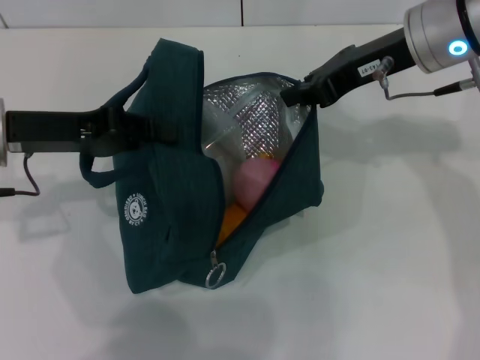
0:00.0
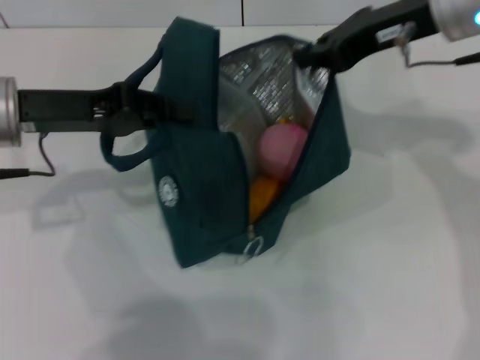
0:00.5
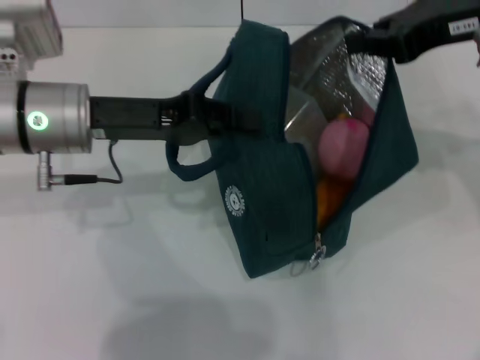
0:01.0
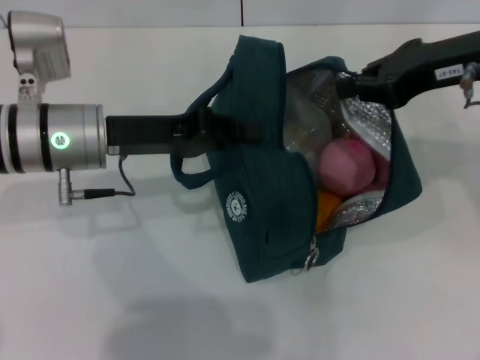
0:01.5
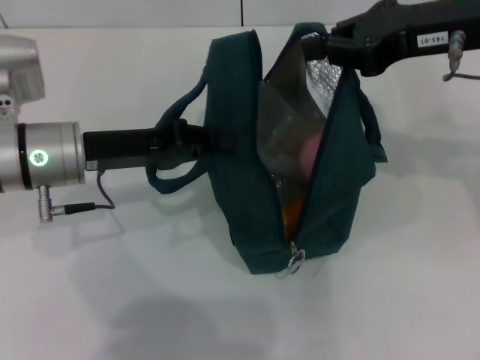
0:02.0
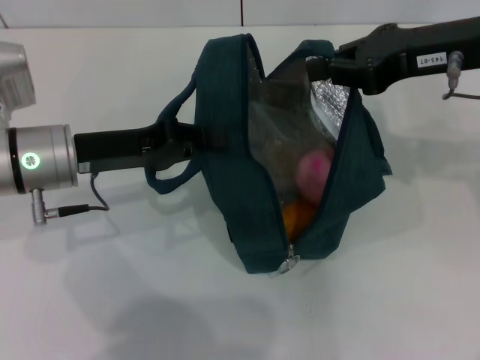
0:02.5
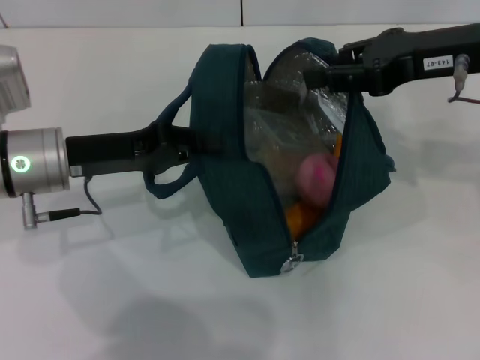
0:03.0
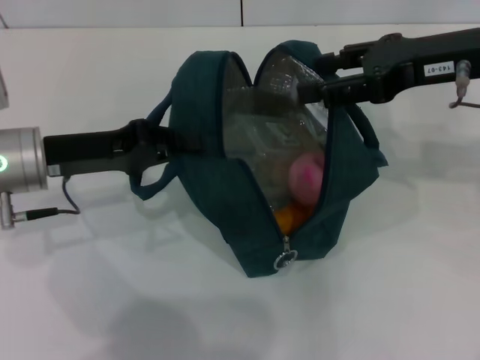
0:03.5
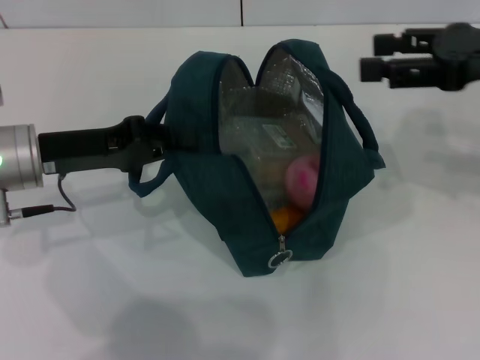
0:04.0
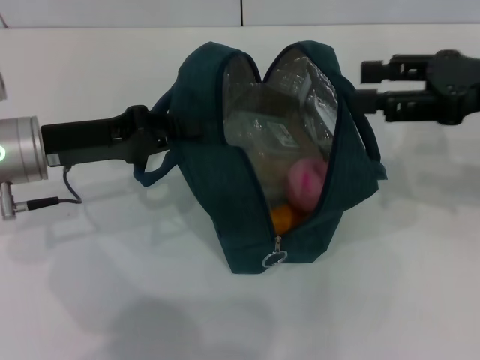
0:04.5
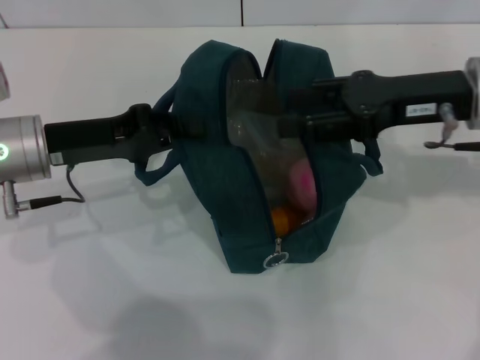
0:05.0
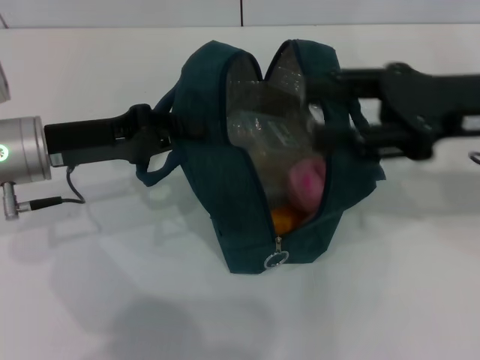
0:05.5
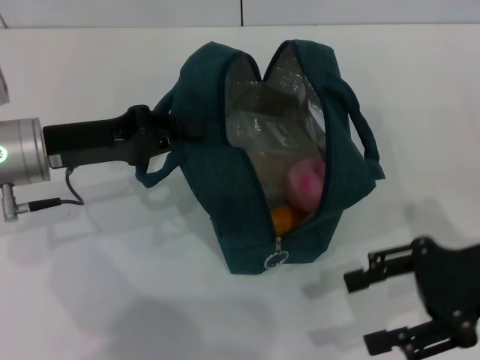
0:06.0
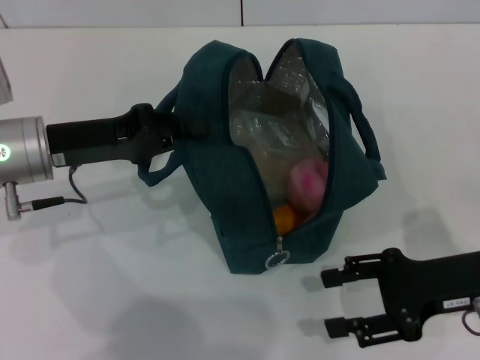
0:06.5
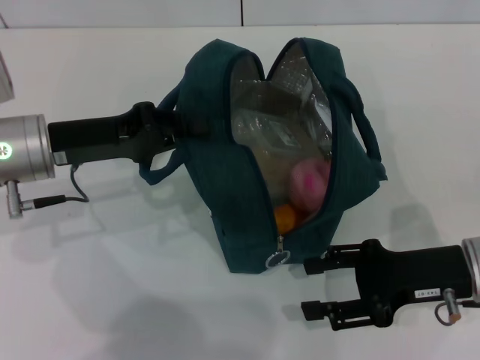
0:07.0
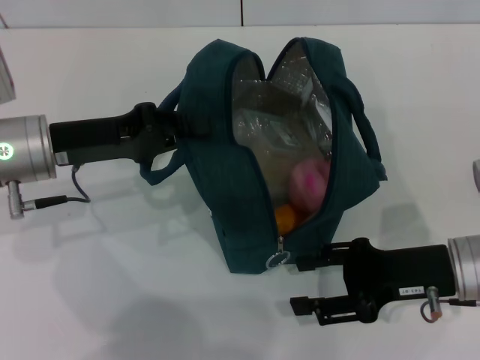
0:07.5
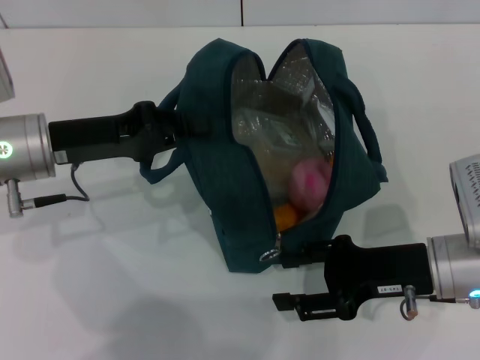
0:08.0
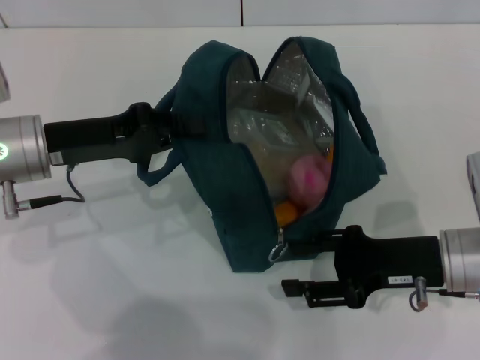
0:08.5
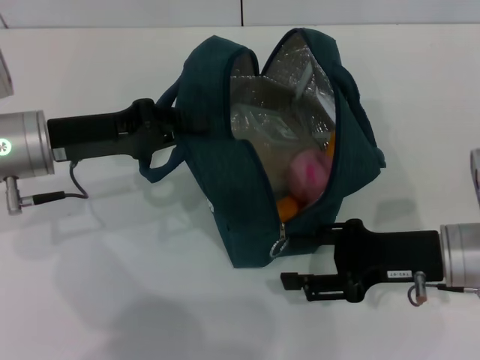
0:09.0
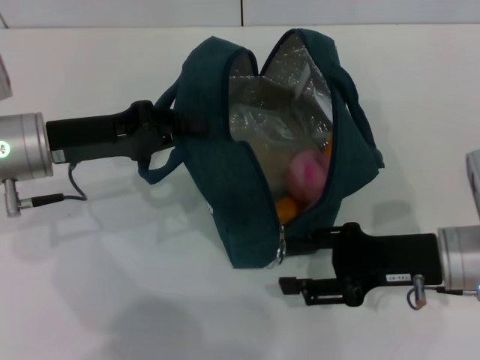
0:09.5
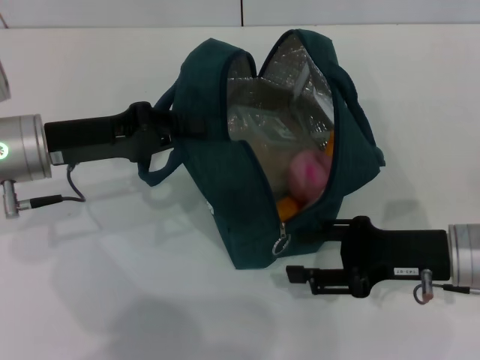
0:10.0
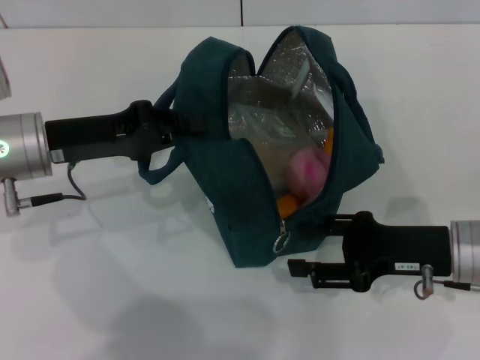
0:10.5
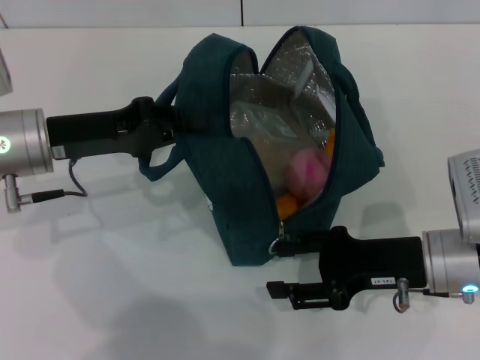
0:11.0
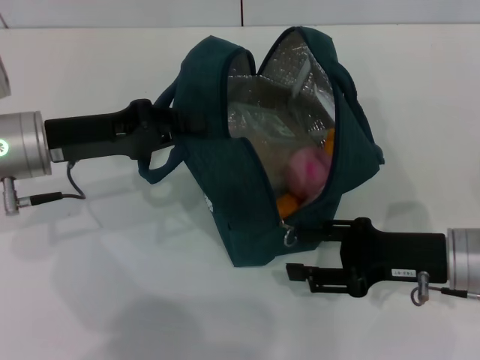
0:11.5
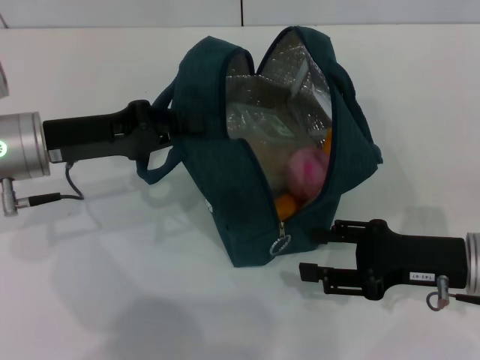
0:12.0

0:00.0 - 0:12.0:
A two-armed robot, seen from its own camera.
Step, 0:00.0 - 0:03.5: Hold the lunch bag with your right hand.
0:00.0 - 0:02.0: The left gripper moves to the right, approximately 5 cm. Meanwhile the right gripper shifts by roughly 5 cm.
0:02.0 - 0:04.0: The right gripper is displaced to the right by approximately 5 cm, and opens up.
0:04.0 - 0:06.0: The right gripper moves downward and backward, about 10 cm.
0:06.0 - 0:08.0: The right gripper goes roughly 10 cm downward and to the left.
0:08.0 - 0:12.0: The grippers make only small movements.

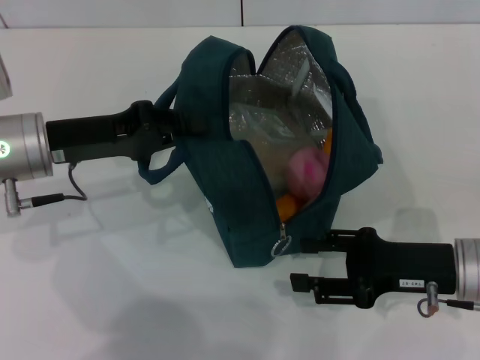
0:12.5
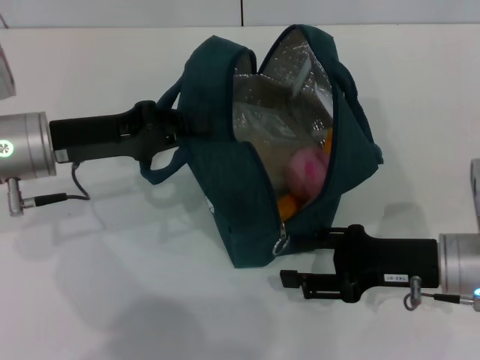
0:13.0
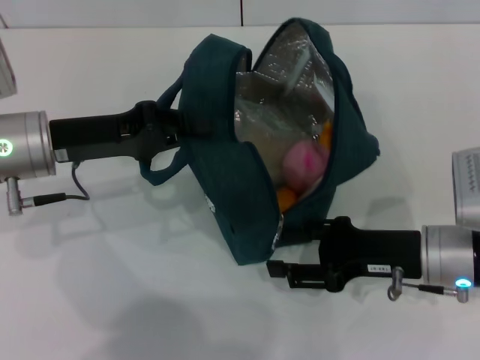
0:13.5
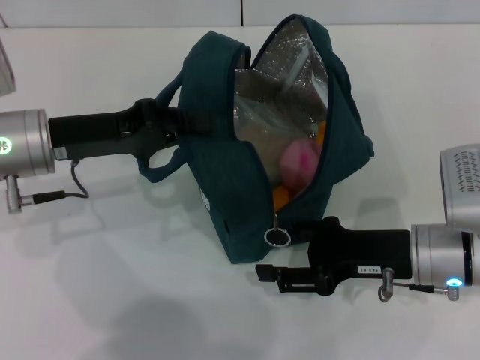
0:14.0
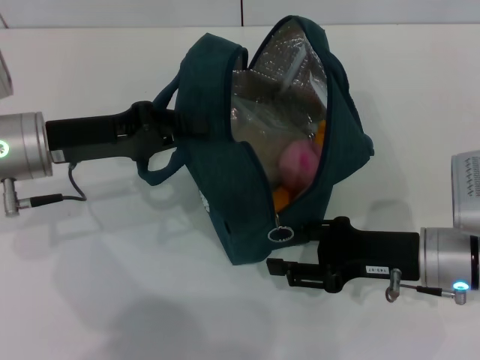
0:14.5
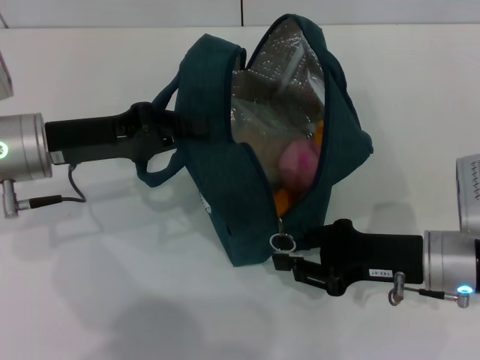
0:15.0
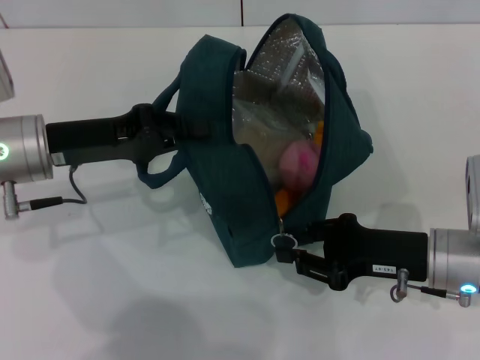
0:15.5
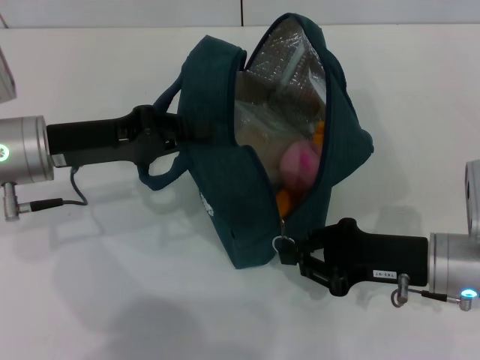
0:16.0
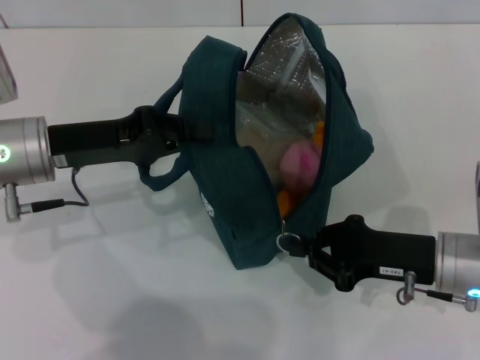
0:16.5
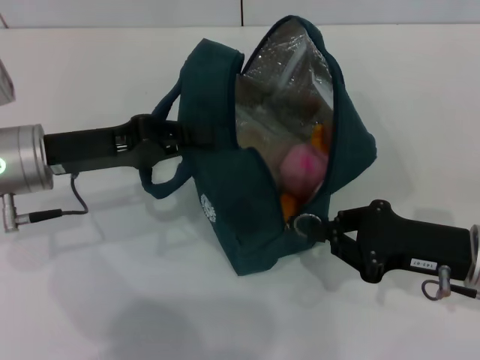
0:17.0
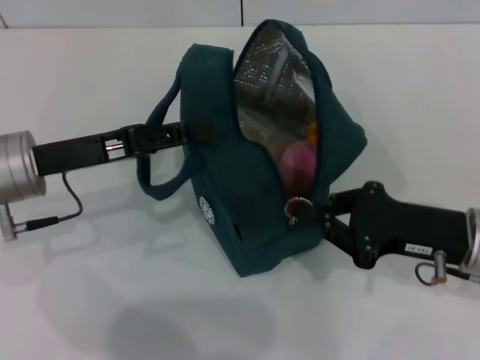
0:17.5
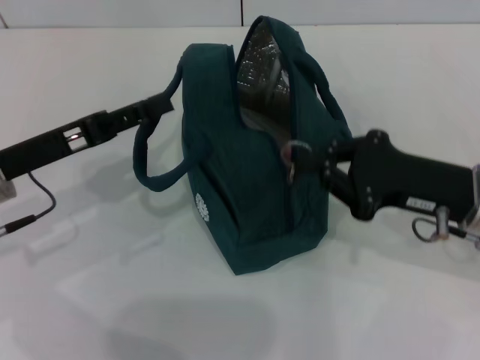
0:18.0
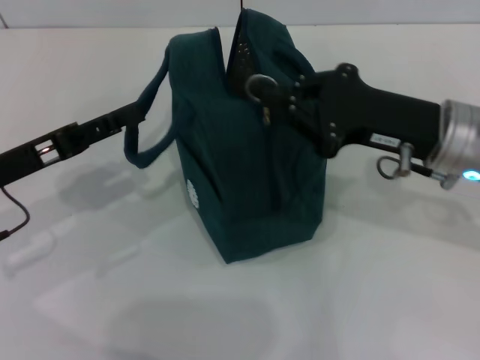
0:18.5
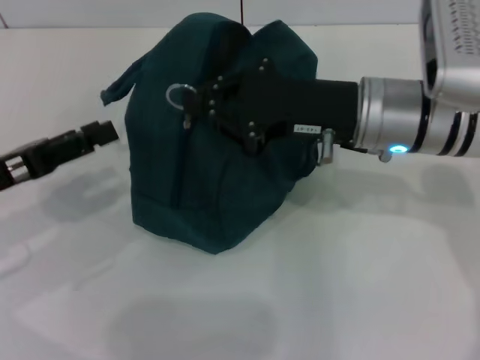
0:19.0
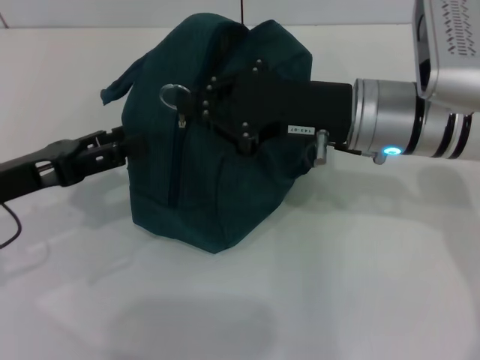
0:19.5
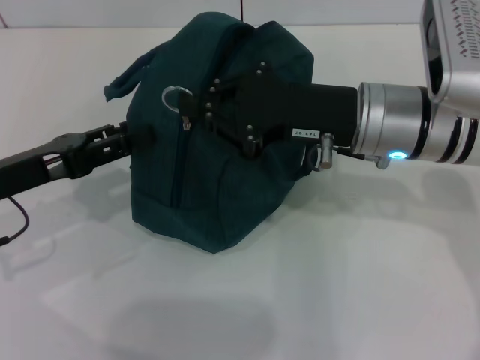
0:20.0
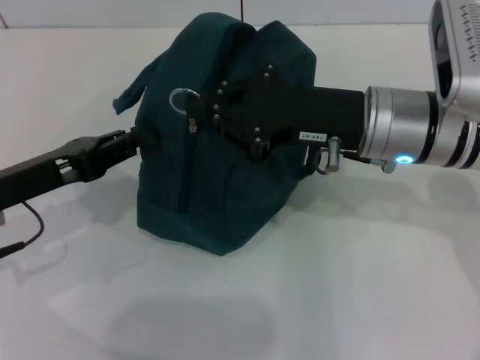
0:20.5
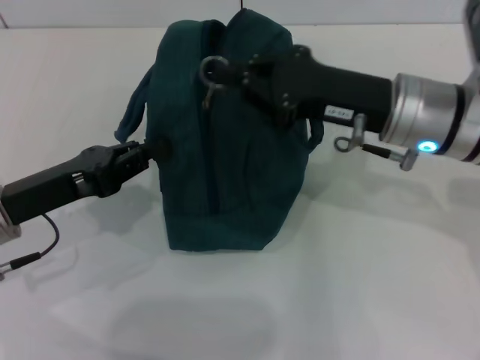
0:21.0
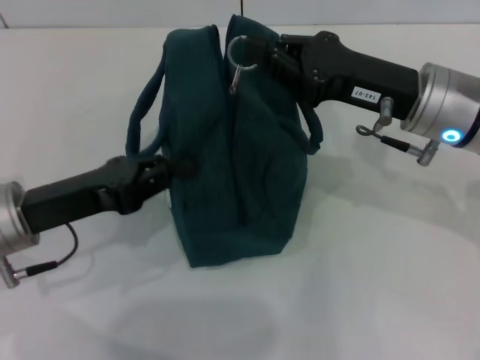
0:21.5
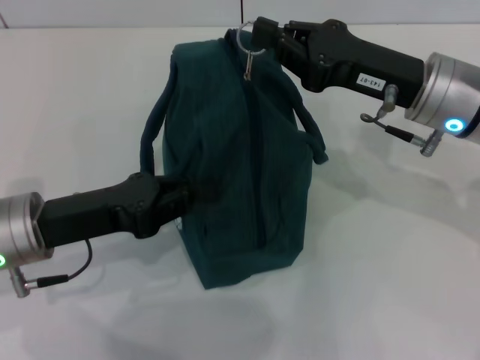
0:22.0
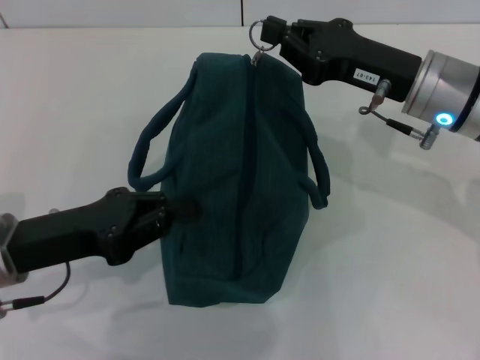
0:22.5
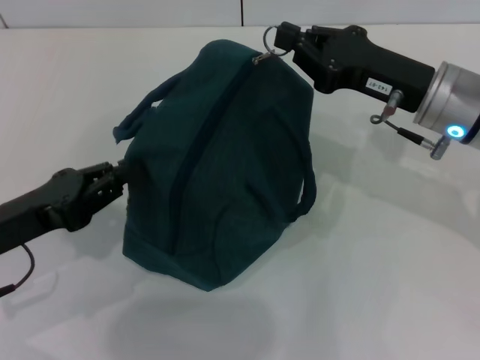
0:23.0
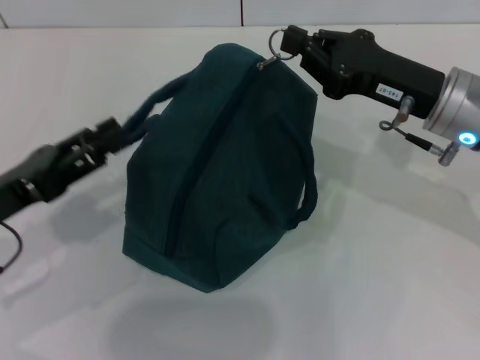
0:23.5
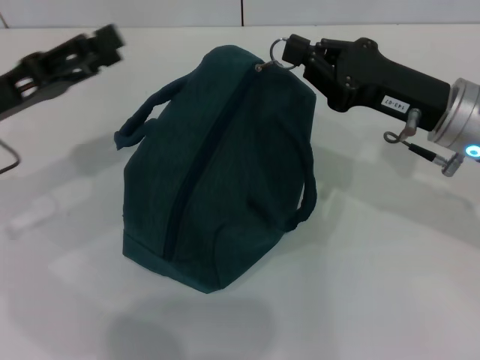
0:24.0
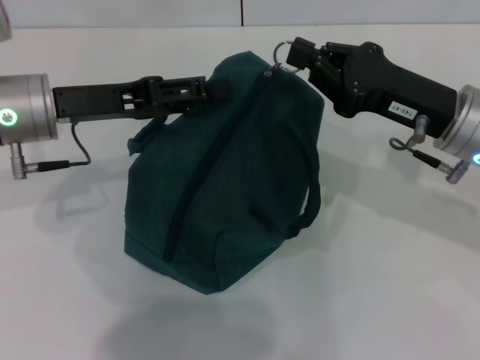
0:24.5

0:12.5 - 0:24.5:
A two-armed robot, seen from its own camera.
Step, 0:12.5 - 0:17.5: Hold the lunch bag with your left hand.
0:12.5 - 0:14.5: There are only small adjustments of the grippers.
0:14.5 - 0:16.5: The right gripper closes.
0:16.5 - 0:18.5: The left gripper shifts roughly 5 cm to the left, and opens. Meanwhile the right gripper moves upward and forward, approximately 10 cm.
0:18.5 - 0:20.5: The left gripper closes its fingers. Meanwhile the right gripper is displaced to the left by about 5 cm.
0:20.5 - 0:22.5: The right gripper moves about 5 cm.
0:22.5 - 0:24.5: The left gripper heads forward and upward, covering approximately 10 cm, and opens up.

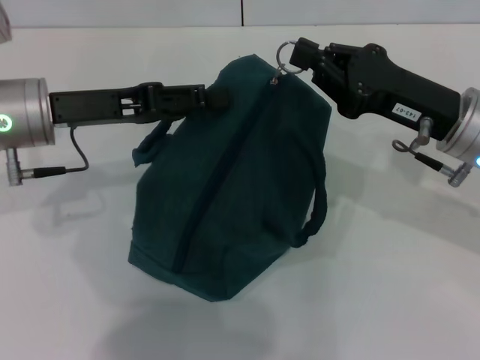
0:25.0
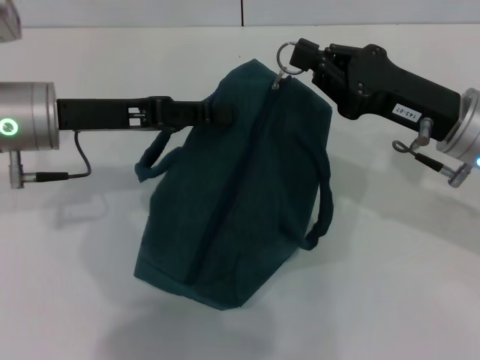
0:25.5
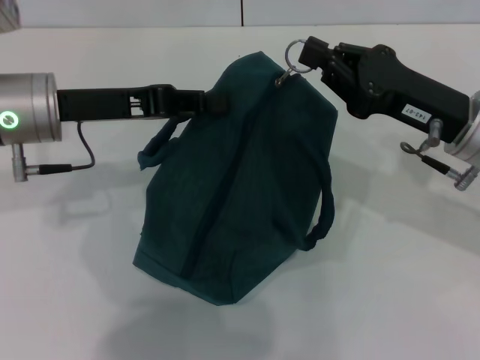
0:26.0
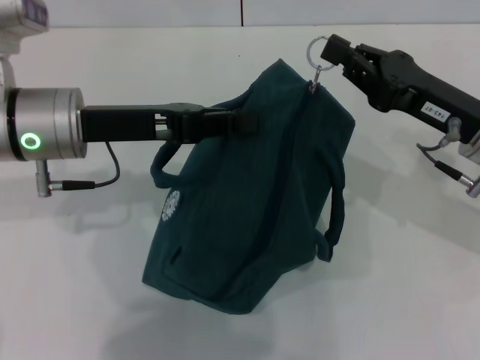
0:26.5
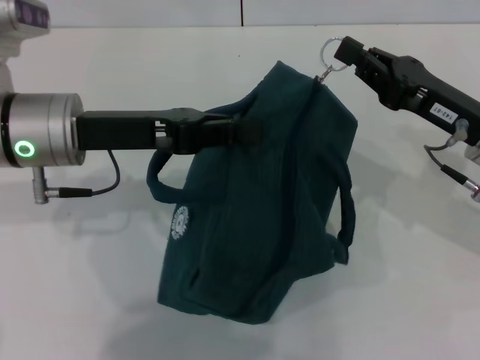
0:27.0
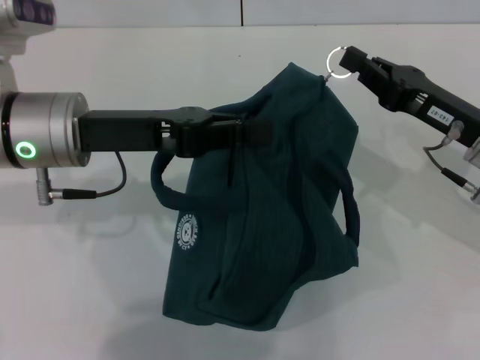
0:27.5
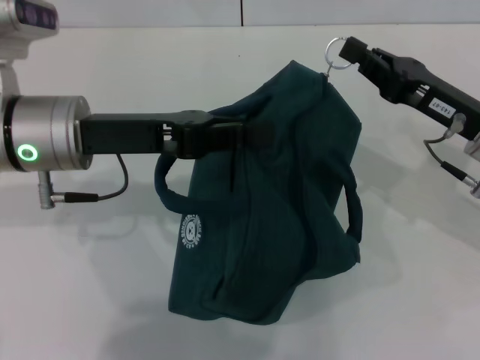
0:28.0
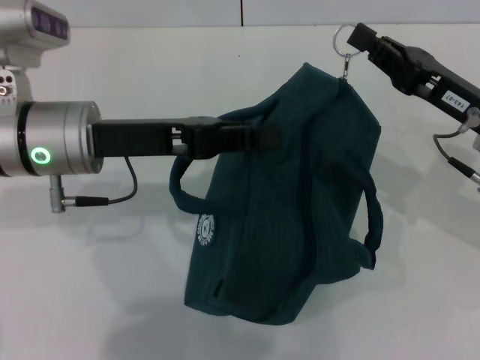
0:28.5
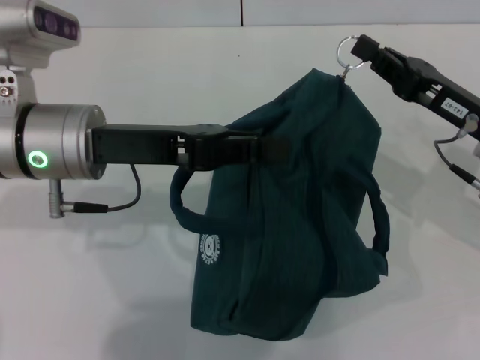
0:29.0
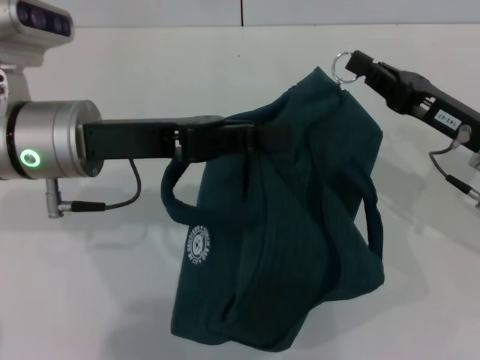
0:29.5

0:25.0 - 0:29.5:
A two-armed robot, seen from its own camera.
0:25.0 - 0:27.0: The left gripper closes.
